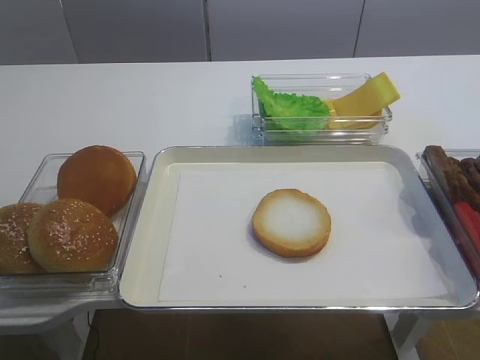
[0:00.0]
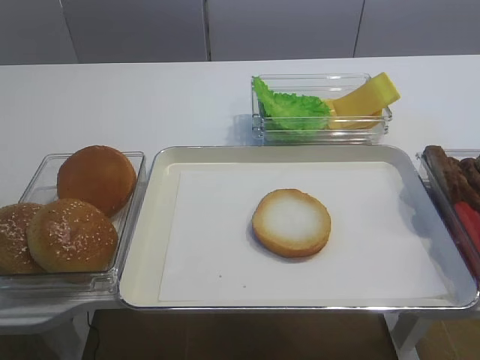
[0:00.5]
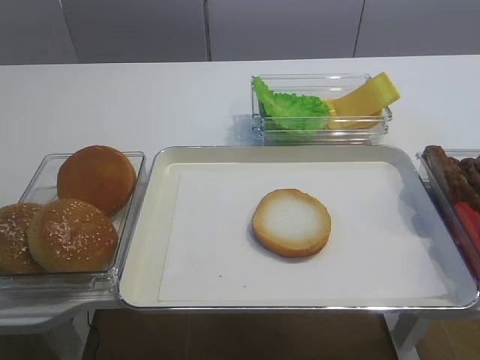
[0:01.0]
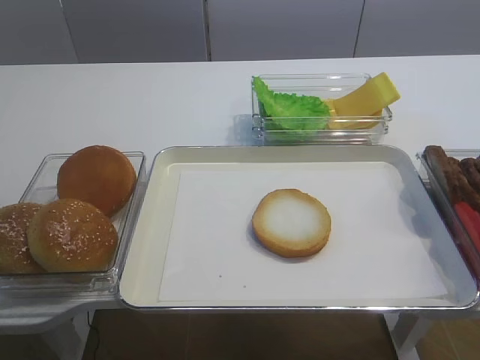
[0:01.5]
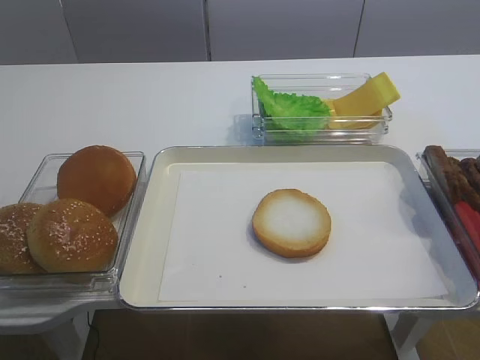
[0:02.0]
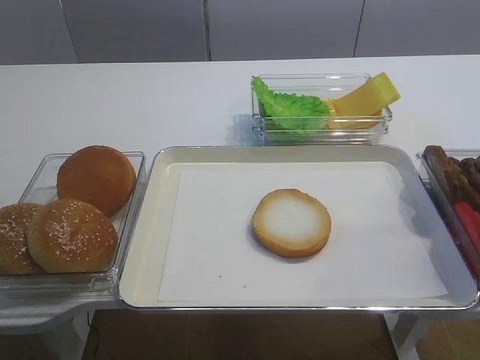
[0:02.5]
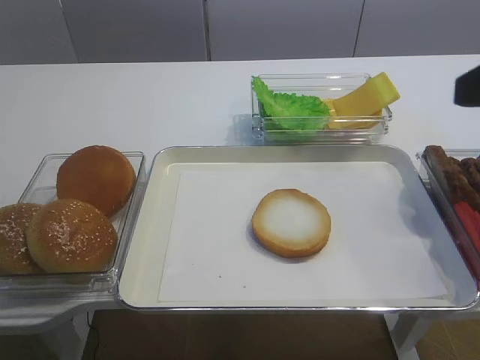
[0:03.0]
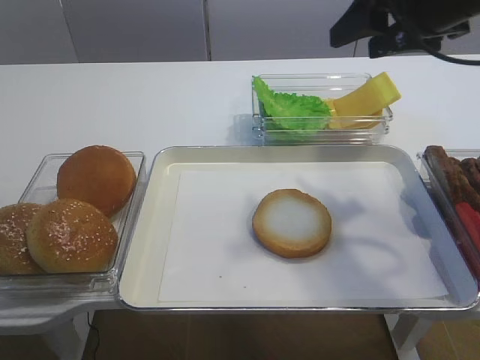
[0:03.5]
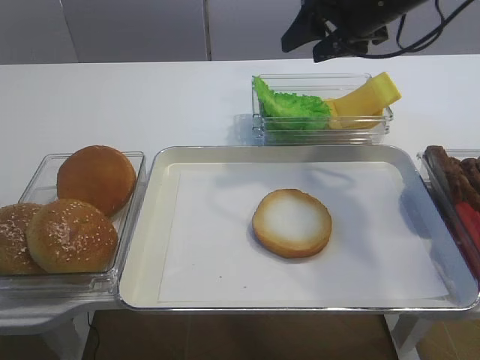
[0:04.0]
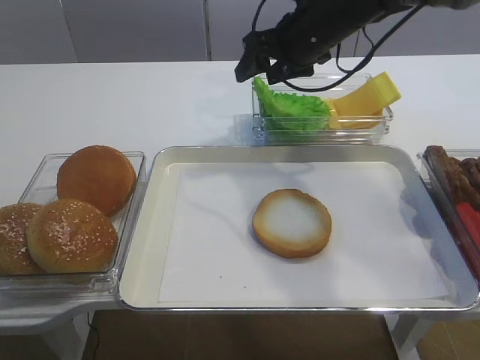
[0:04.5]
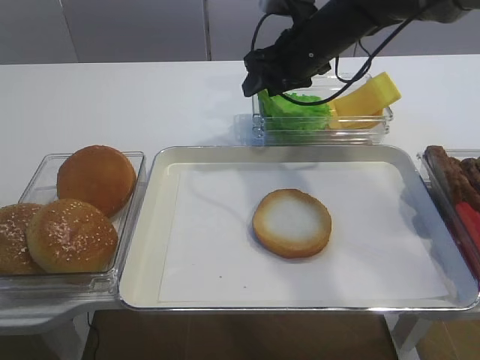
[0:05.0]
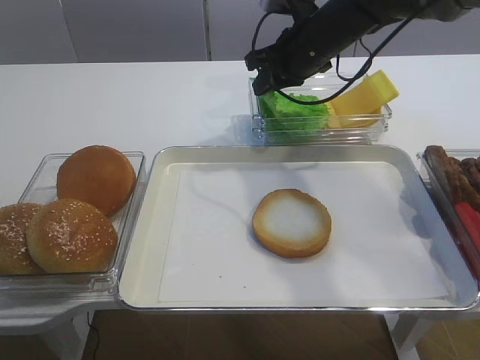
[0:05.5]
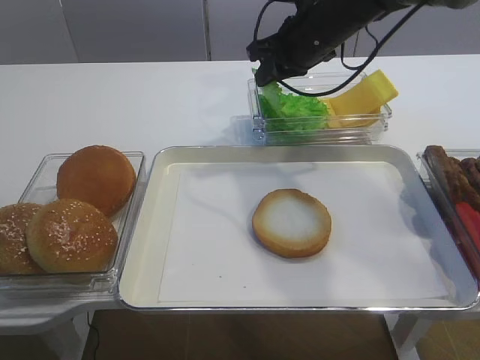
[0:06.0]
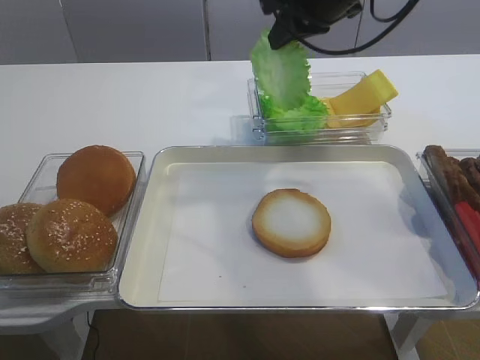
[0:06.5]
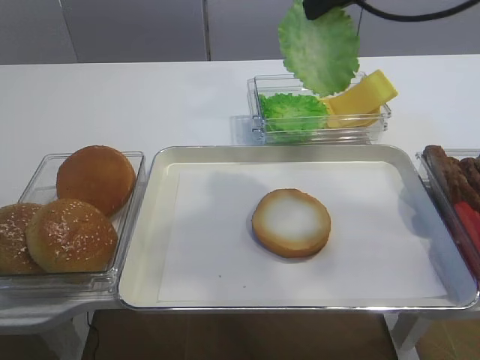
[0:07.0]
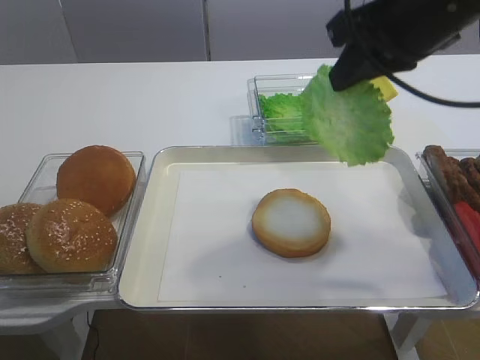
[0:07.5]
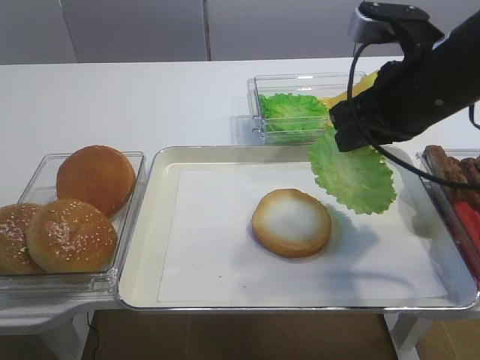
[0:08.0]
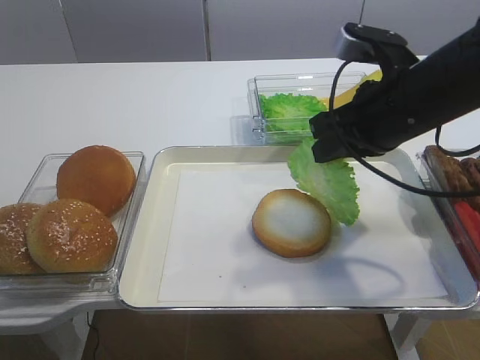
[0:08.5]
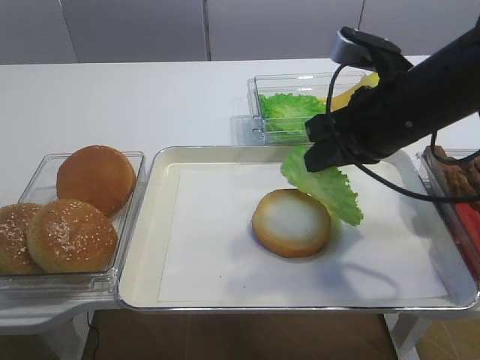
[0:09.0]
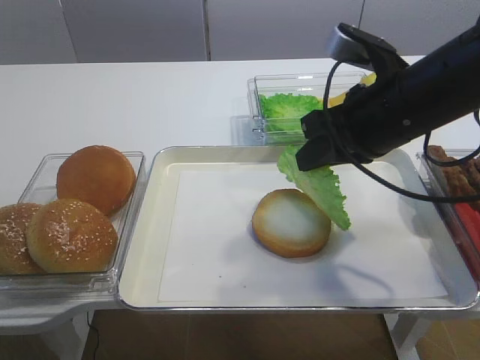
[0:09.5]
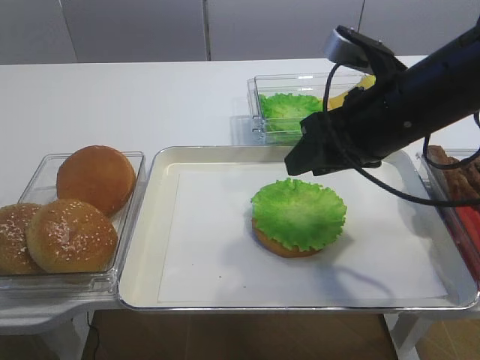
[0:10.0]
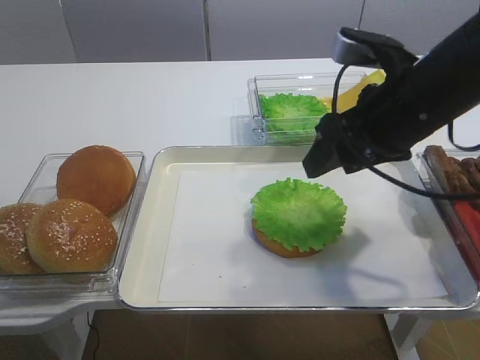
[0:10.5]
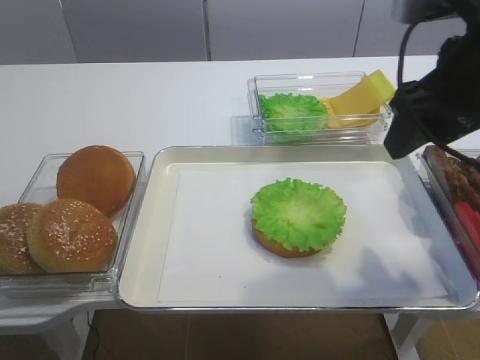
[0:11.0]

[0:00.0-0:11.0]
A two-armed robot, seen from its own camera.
Step, 0:00.0 to 0:06.5: Pick up the lettuce leaf with the right gripper.
Step, 0:07.0 to 0:10.0: Place the lettuce leaf on the bread slice with the right gripper.
0:02.0 to 0:03.5: The right gripper travels forward by roughly 35 cm.
0:03.5 to 0:05.5: The right gripper goes some 20 cm forward, to the left and downward, and closes its fingers.
0:05.5 to 0:07.5: The right gripper goes some 20 cm backward and upward.
0:07.5 to 0:09.0: The right gripper shifts some 10 cm downward.
0:09.0 to 0:11.0: The right gripper shifts approximately 5 cm upward, and opens up.

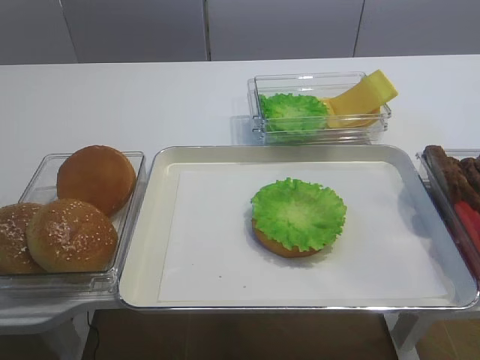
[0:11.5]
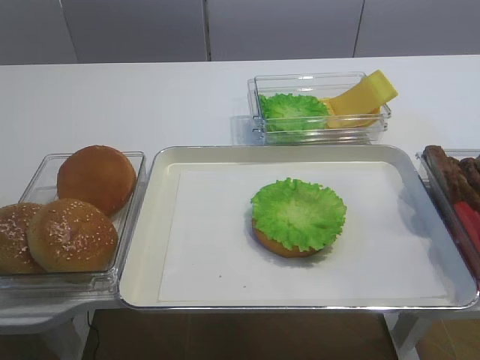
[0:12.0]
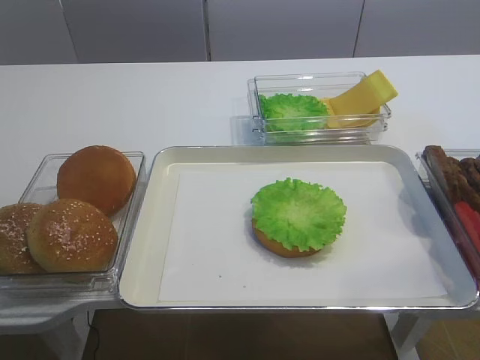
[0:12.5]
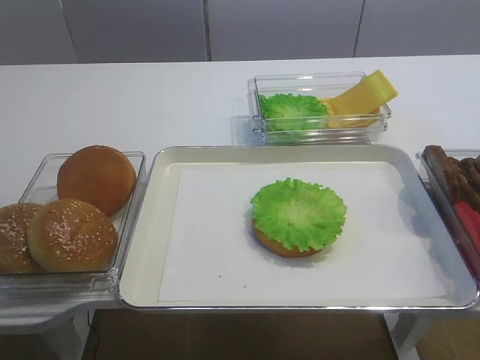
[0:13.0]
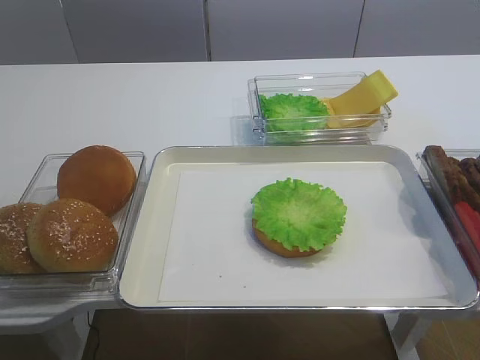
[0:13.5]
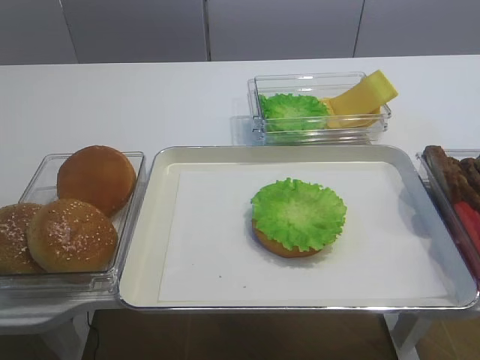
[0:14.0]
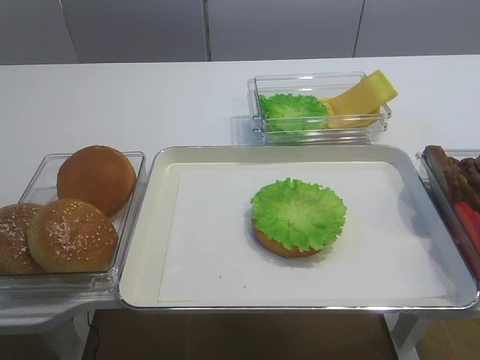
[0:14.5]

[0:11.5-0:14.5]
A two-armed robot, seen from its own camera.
0:11.5 to 0:13.0: The right gripper travels backward and downward by some 20 cm.

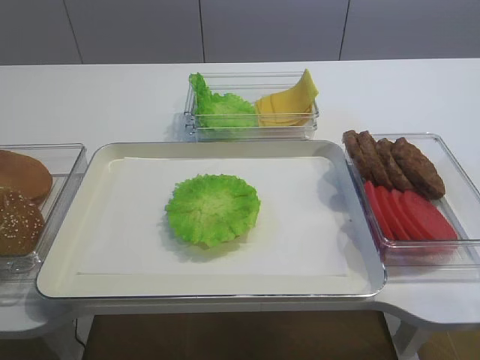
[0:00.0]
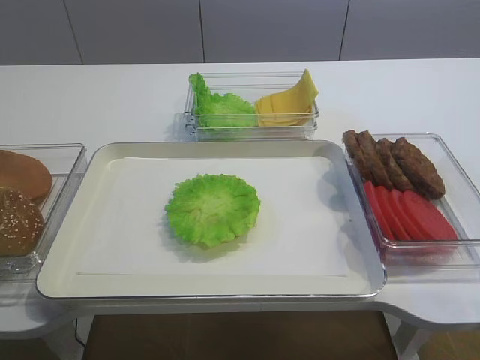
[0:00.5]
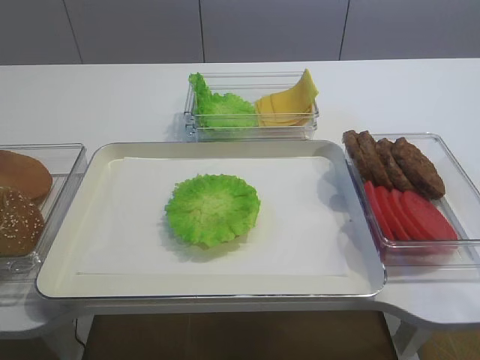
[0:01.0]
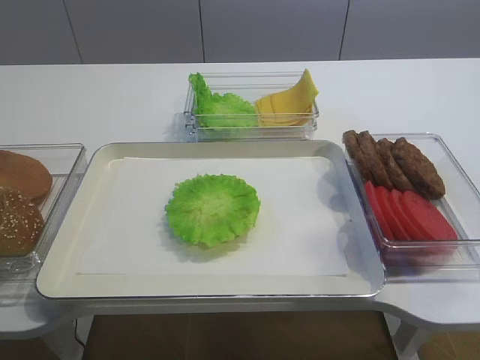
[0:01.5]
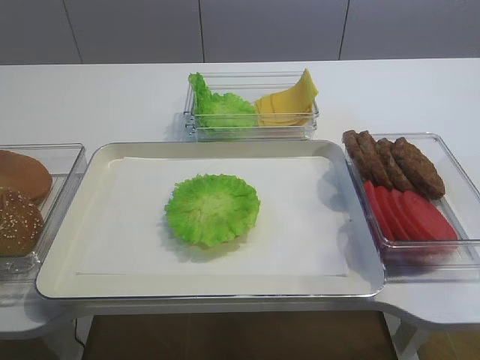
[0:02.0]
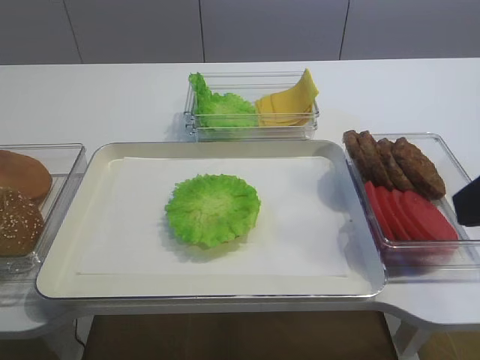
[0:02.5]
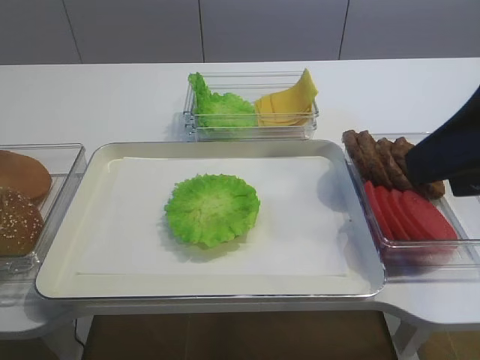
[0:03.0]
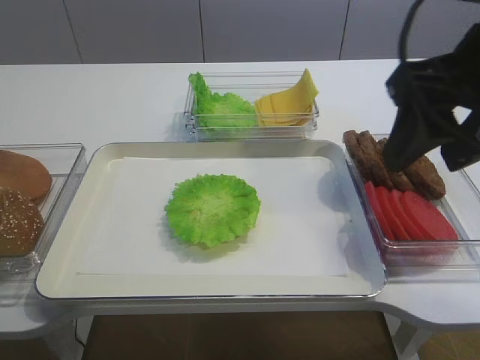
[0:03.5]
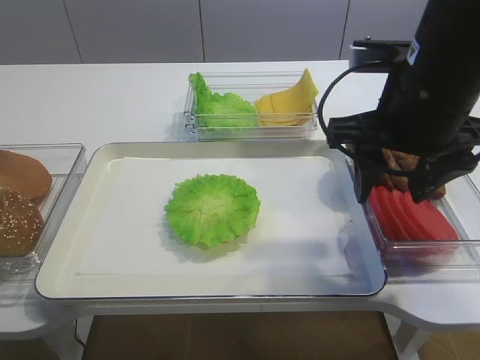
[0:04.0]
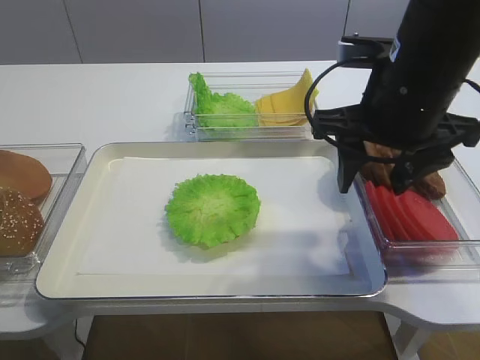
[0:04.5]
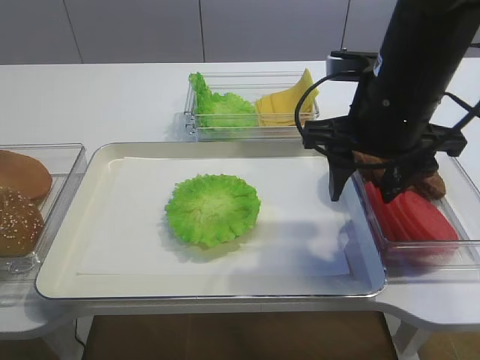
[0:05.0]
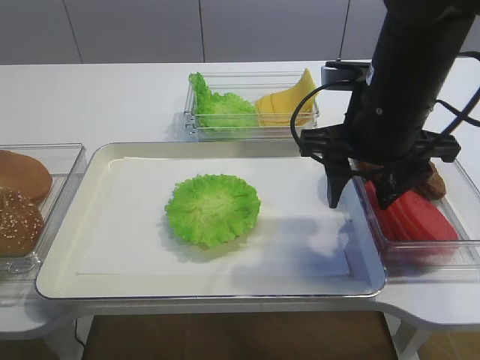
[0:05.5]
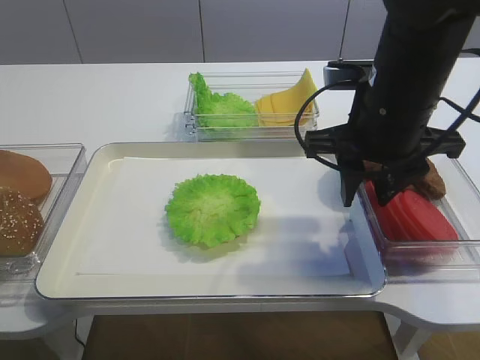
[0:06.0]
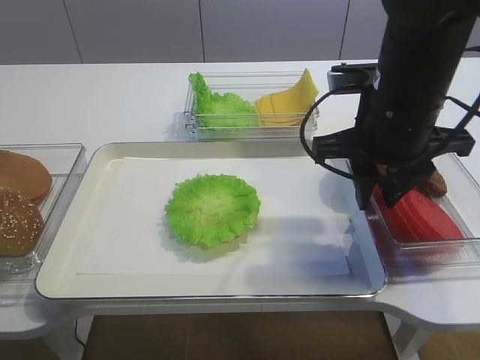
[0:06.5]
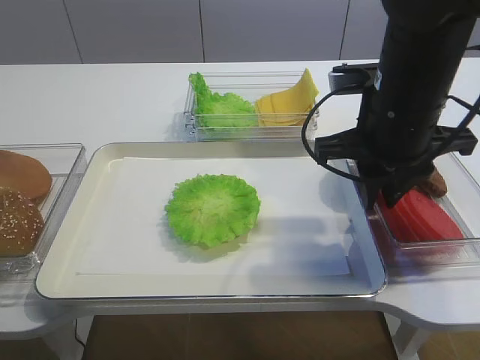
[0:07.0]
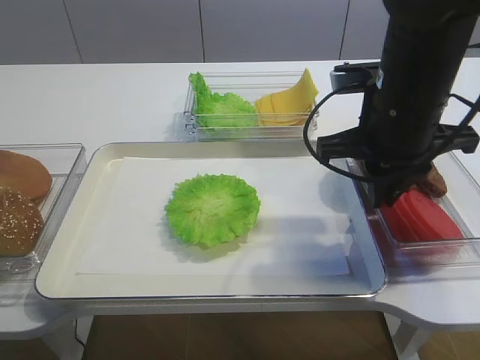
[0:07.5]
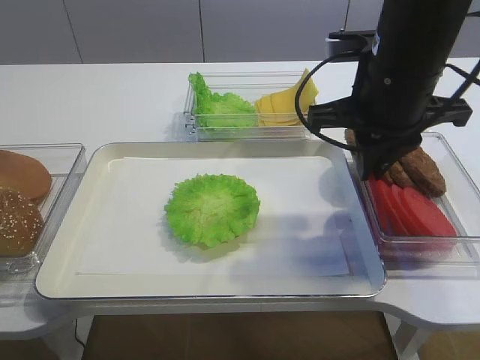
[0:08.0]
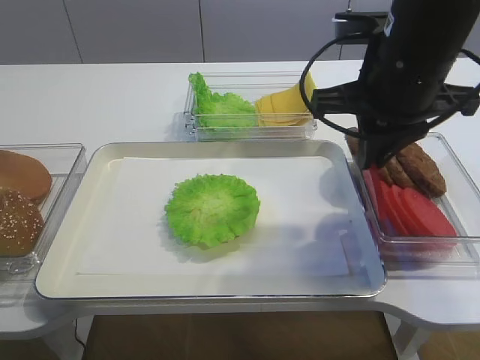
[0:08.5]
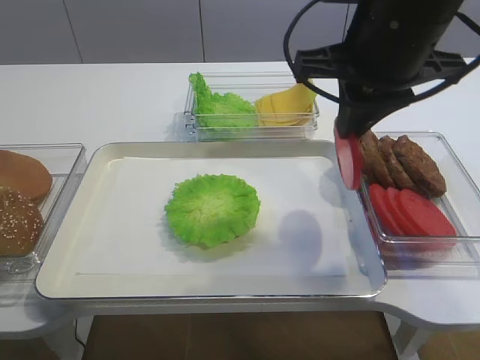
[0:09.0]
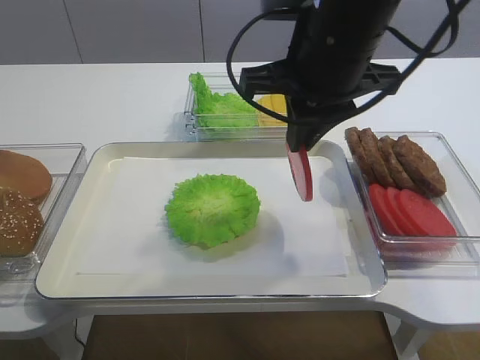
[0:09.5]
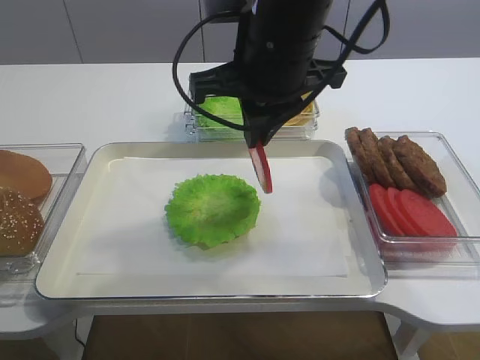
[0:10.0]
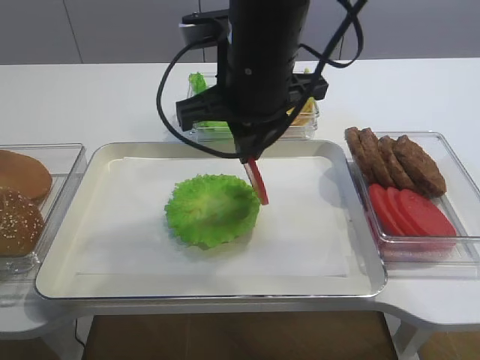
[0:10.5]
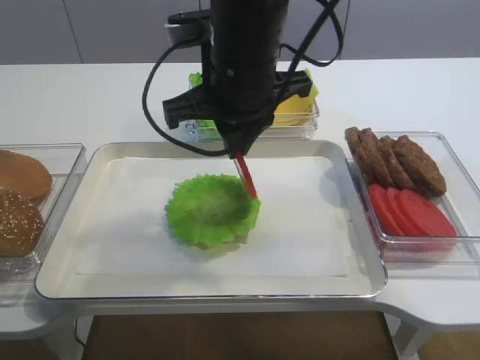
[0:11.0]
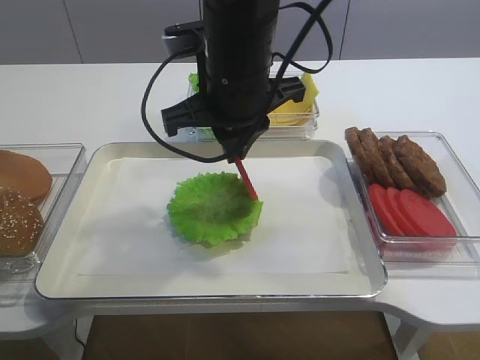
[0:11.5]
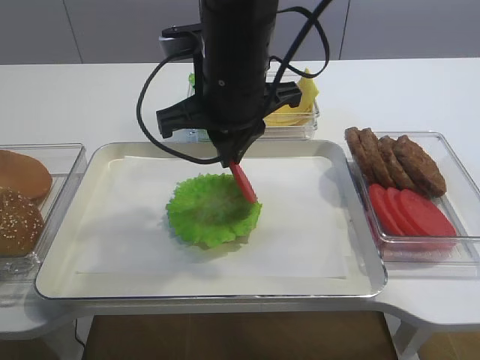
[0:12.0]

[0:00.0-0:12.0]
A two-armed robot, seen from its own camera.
Step, 0:00.0 to 0:08.5: Pick up the tomato slice with the right gripper.
0:02.0 to 0:04.0: The right gripper heads forward and to the left, covering some 20 cm.
0:04.0 to 0:06.0: The grippers stay close to where they were, moving slightly.
0:06.0 to 0:08.0: The right gripper closes up.
0:08.0 to 0:10.0: The right gripper shifts some 10 cm to the left.
0:10.0 to 0:12.0: The right gripper ends up about 5 cm from where it was.
